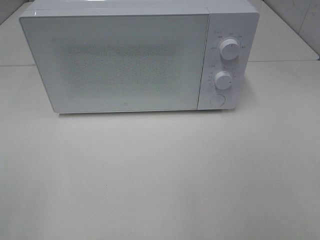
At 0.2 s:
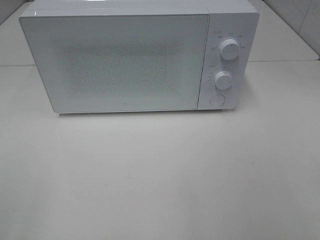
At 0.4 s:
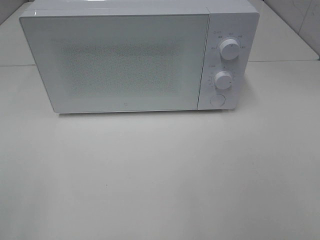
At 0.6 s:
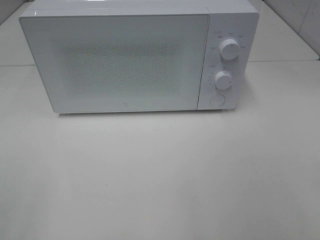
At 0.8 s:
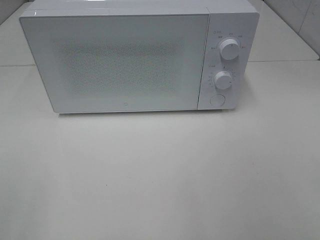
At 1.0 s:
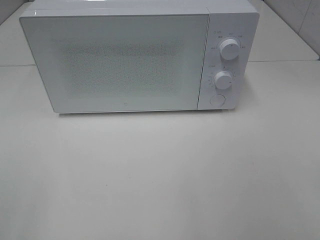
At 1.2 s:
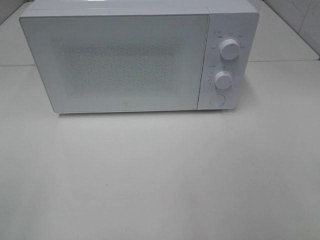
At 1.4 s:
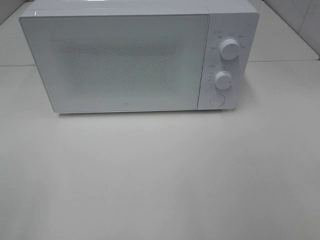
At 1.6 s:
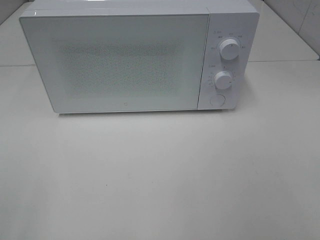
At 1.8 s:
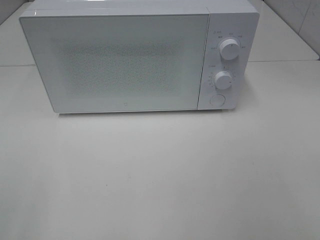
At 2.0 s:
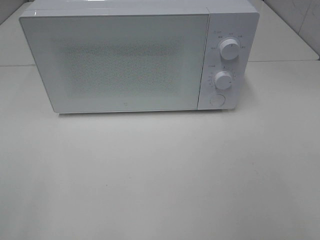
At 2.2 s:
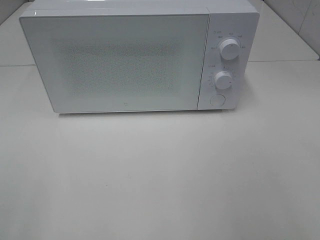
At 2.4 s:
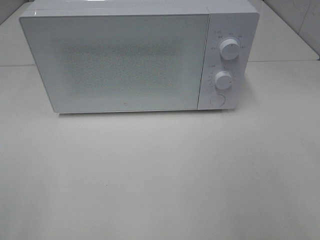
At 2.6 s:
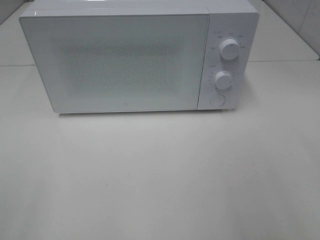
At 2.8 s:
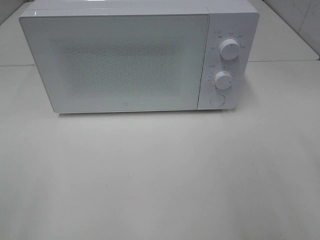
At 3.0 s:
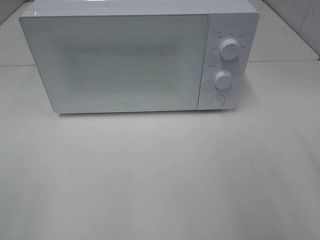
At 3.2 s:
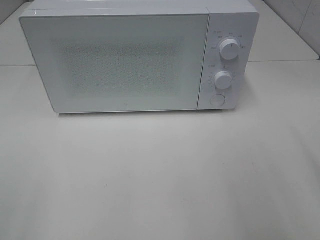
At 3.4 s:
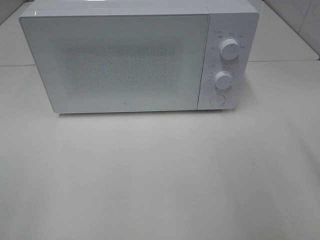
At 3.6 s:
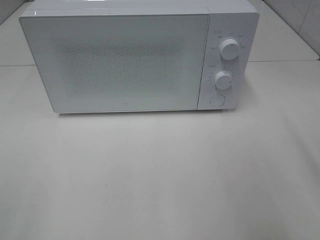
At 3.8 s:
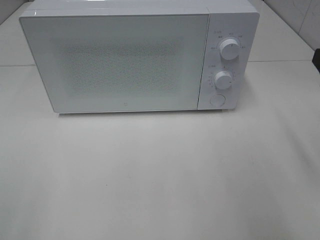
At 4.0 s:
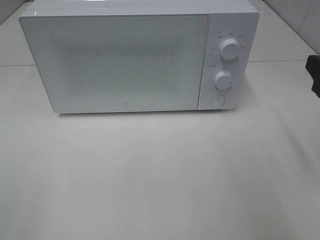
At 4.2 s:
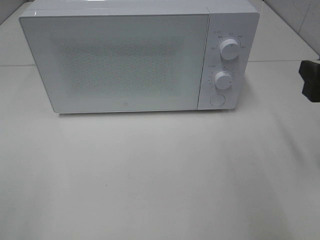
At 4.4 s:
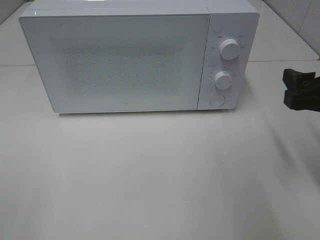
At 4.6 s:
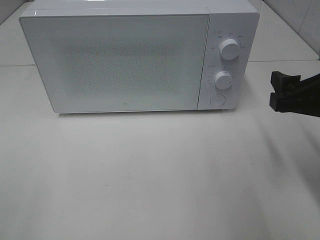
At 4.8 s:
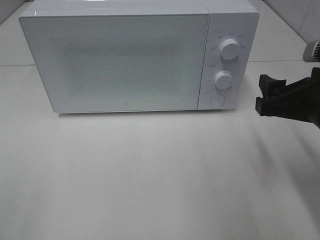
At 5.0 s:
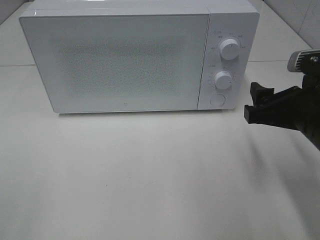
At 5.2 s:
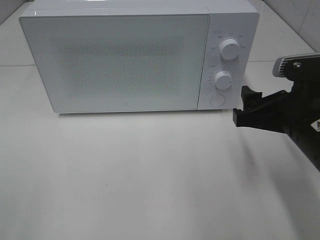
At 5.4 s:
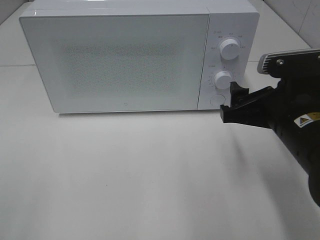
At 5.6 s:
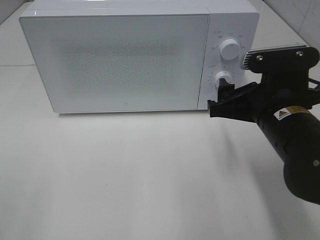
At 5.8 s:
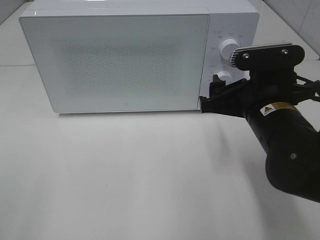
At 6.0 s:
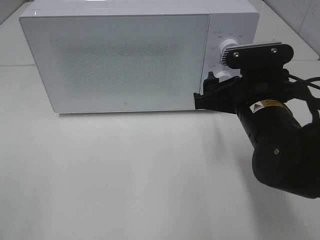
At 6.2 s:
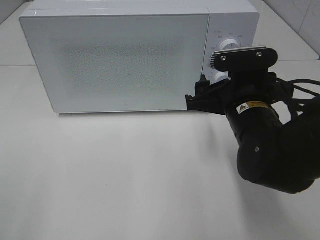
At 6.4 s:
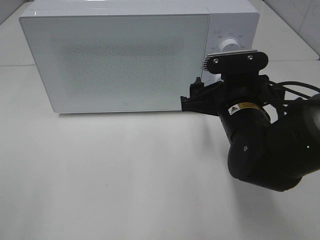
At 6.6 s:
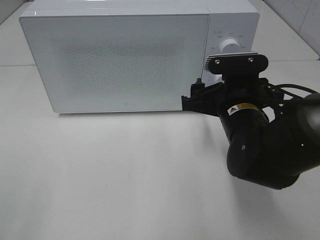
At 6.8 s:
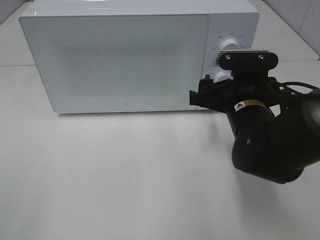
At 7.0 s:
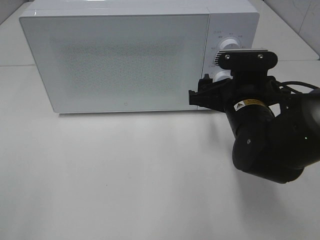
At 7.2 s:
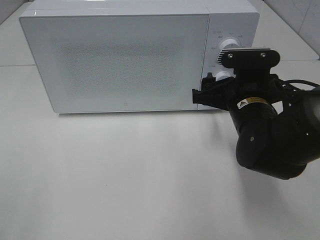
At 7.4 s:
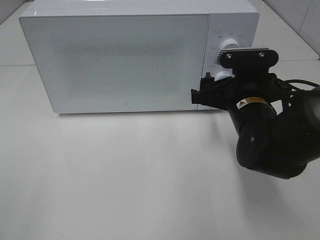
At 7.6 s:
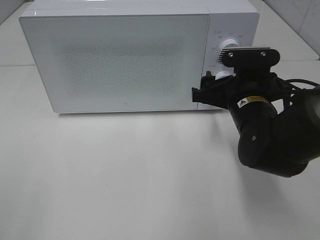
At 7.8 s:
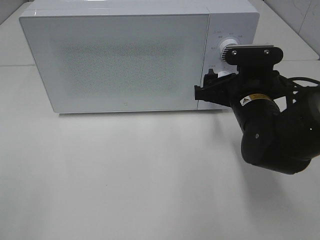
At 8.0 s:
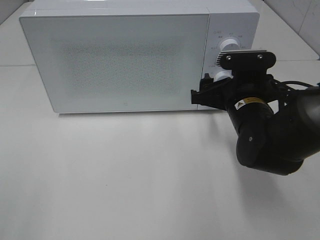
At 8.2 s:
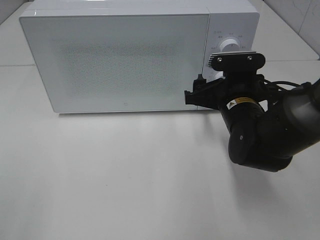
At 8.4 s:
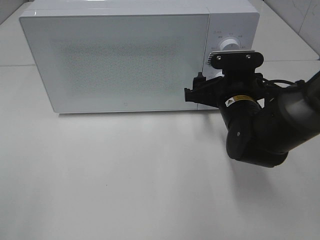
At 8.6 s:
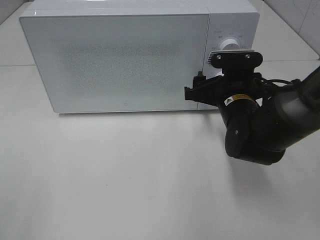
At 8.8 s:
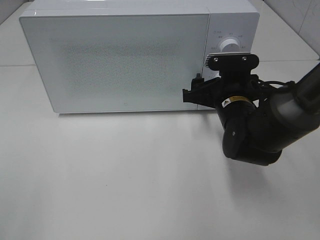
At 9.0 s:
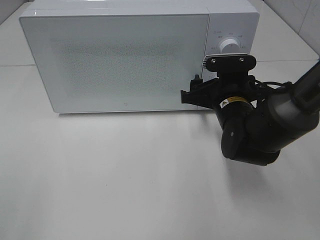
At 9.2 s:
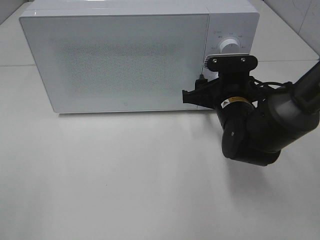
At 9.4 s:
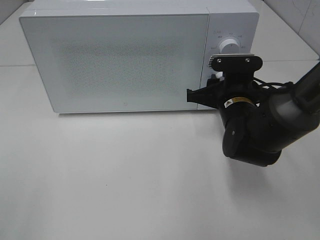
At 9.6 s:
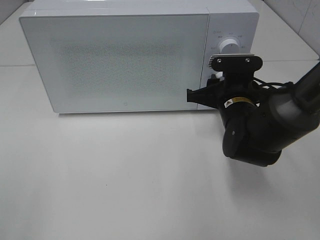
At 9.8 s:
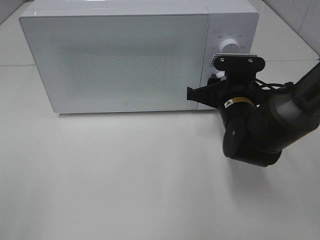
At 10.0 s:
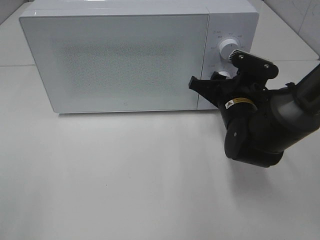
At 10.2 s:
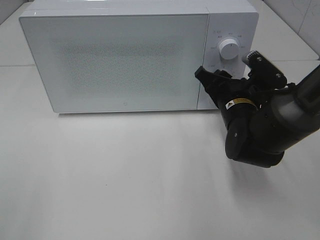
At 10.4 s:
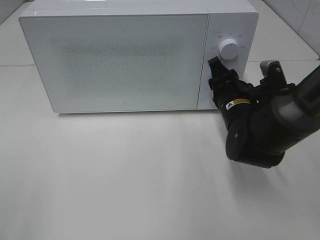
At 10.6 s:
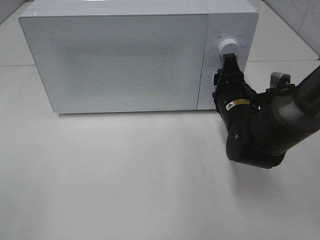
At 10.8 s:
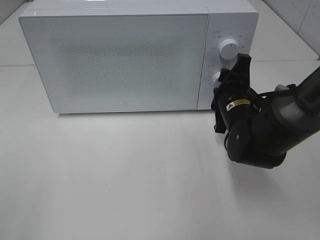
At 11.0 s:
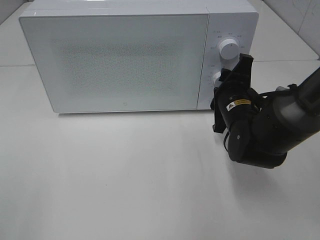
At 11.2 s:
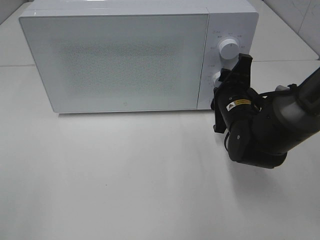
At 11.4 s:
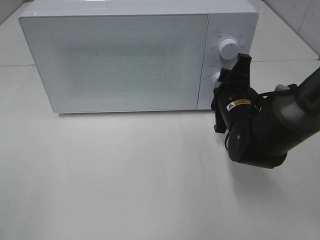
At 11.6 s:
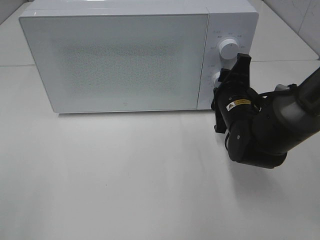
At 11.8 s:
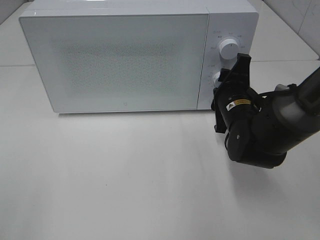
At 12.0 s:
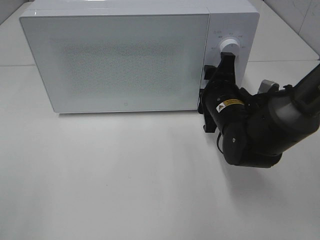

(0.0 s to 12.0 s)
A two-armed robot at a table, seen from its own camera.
Task of the whole recording: Heat the burger.
Step, 0.0 s - 11.8 s: Right hand: twist timer button.
0.0 s - 1.6 s: Both grippers stay put.
3.0 s - 4.4 s: The right gripper is displaced forward and downward by some 10 cm.
4.4 s - 6.0 s: The right gripper shifts some 10 cm to the left.
6.0 s - 7.6 s: The grippers move only a little.
7.6 s - 9.0 s: The grippers make only small movements.
9.0 s - 10.4 s: The right gripper closes its fingers.

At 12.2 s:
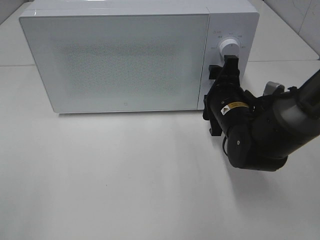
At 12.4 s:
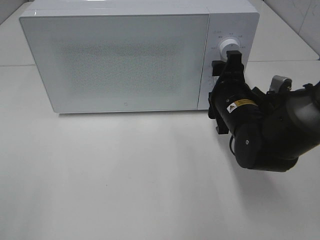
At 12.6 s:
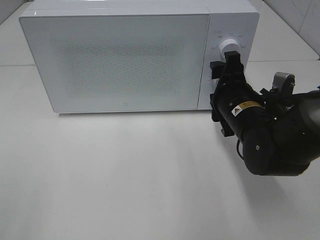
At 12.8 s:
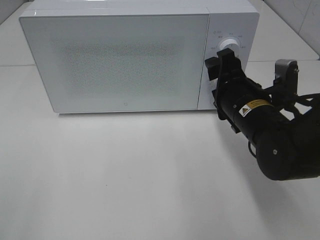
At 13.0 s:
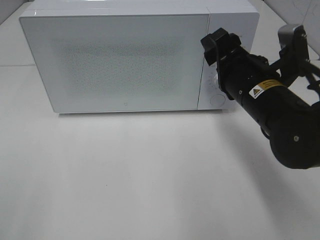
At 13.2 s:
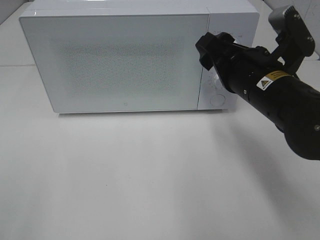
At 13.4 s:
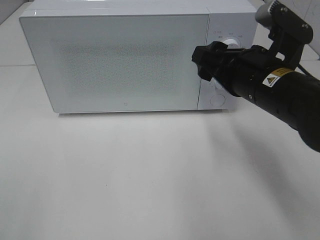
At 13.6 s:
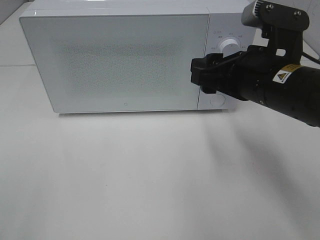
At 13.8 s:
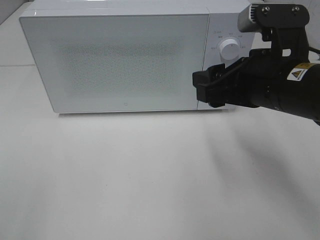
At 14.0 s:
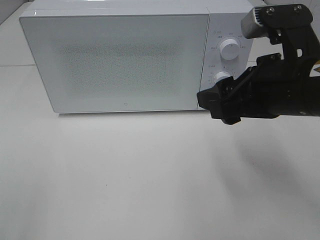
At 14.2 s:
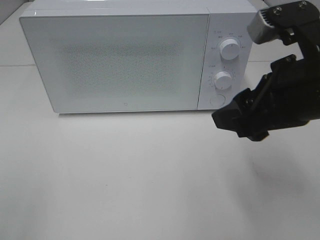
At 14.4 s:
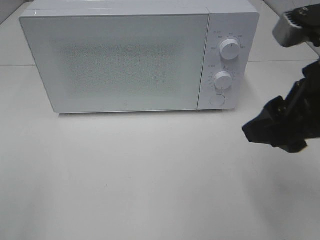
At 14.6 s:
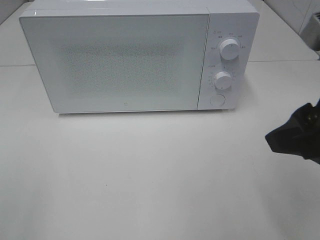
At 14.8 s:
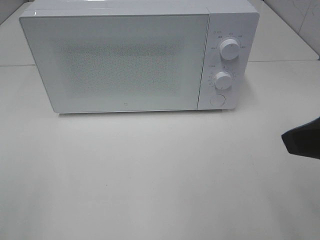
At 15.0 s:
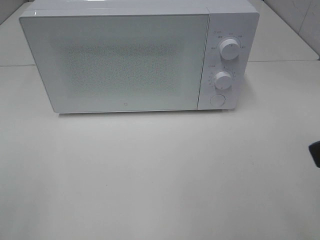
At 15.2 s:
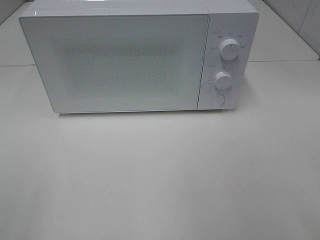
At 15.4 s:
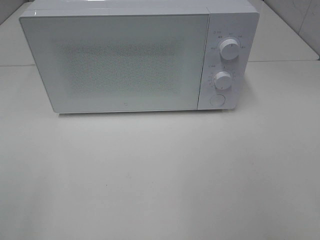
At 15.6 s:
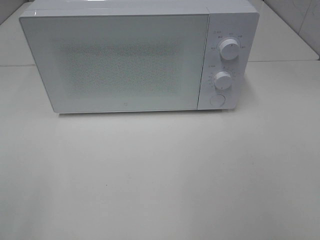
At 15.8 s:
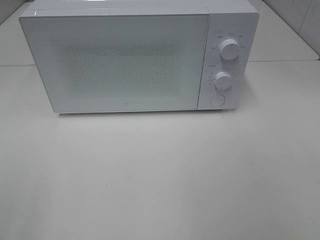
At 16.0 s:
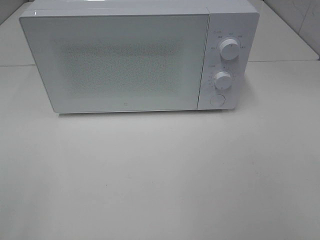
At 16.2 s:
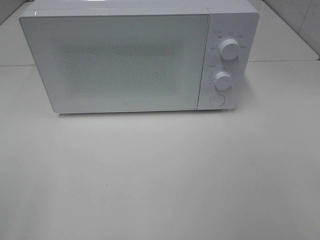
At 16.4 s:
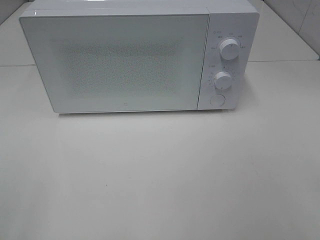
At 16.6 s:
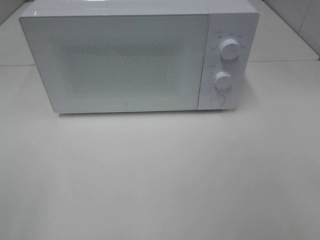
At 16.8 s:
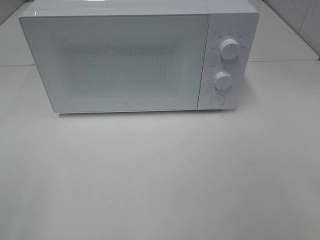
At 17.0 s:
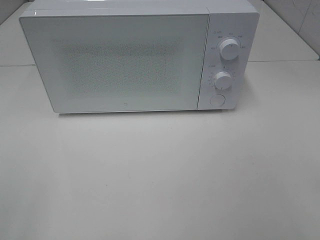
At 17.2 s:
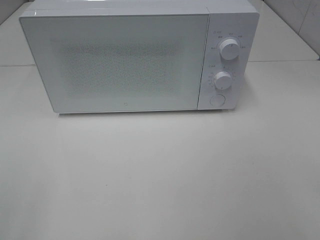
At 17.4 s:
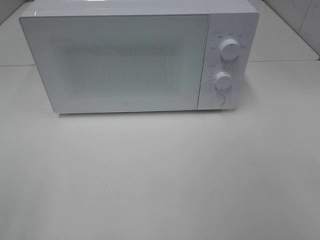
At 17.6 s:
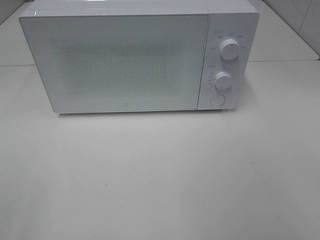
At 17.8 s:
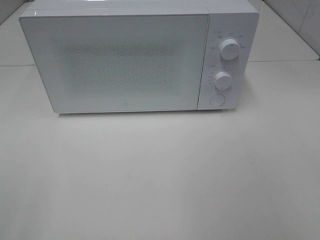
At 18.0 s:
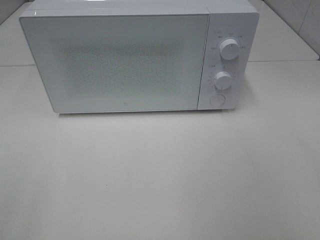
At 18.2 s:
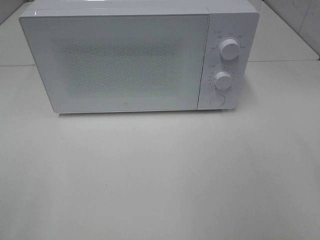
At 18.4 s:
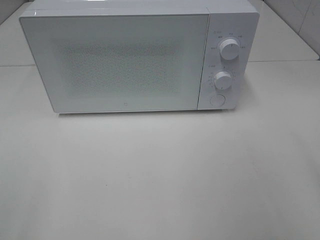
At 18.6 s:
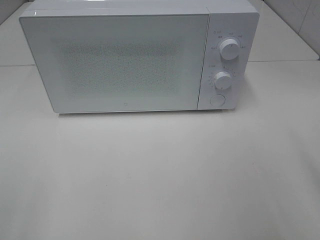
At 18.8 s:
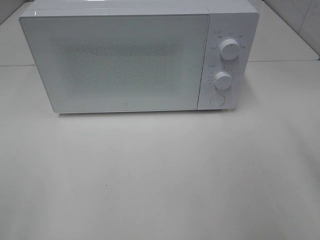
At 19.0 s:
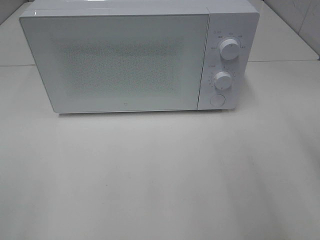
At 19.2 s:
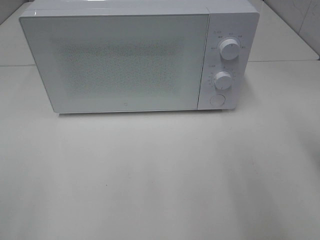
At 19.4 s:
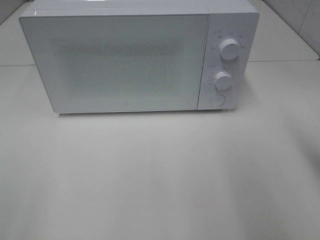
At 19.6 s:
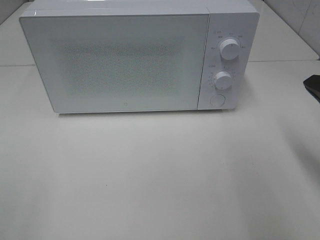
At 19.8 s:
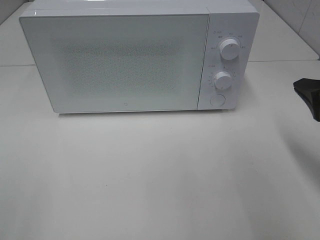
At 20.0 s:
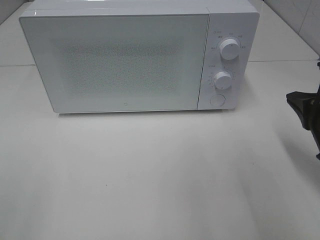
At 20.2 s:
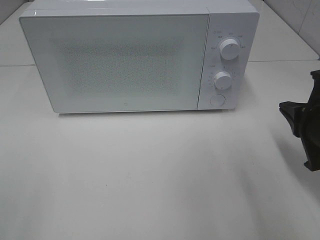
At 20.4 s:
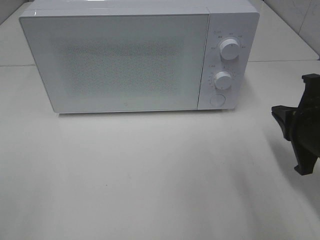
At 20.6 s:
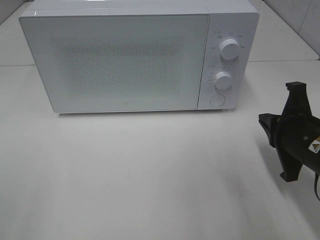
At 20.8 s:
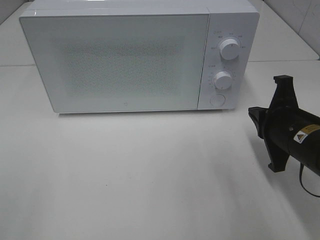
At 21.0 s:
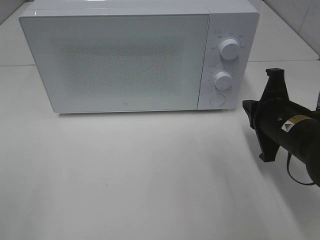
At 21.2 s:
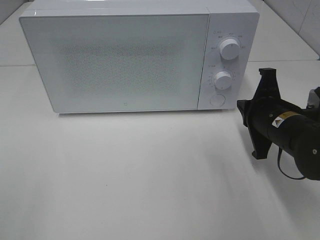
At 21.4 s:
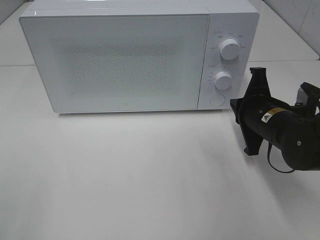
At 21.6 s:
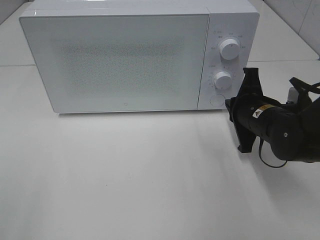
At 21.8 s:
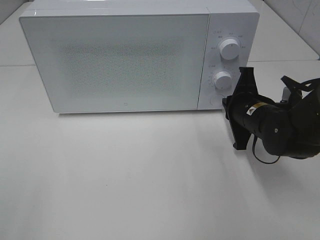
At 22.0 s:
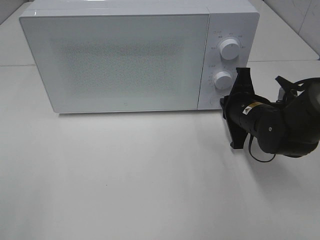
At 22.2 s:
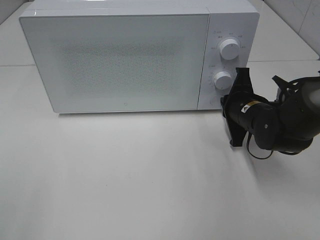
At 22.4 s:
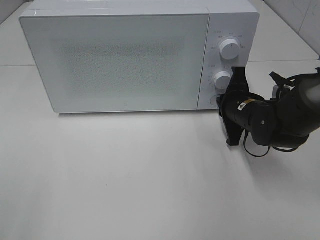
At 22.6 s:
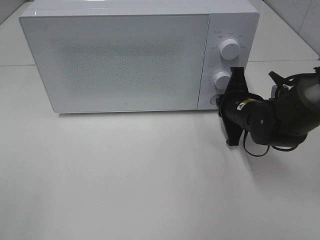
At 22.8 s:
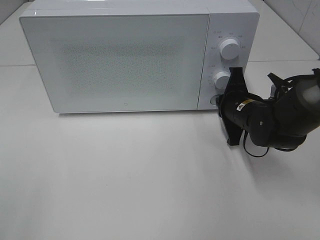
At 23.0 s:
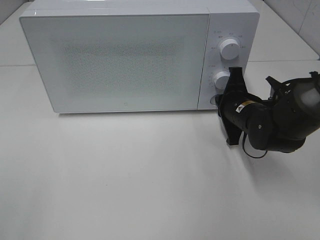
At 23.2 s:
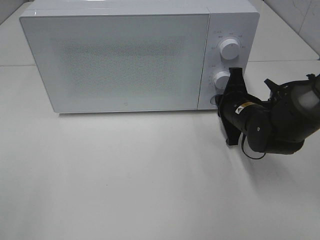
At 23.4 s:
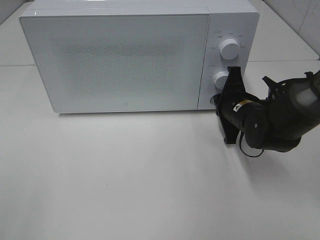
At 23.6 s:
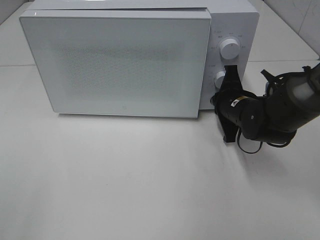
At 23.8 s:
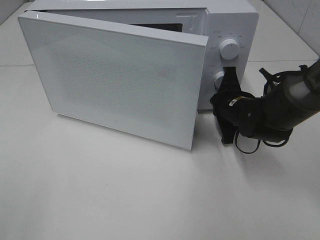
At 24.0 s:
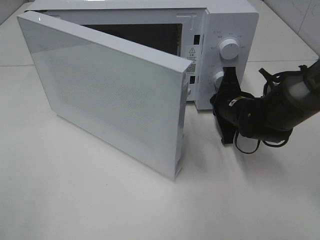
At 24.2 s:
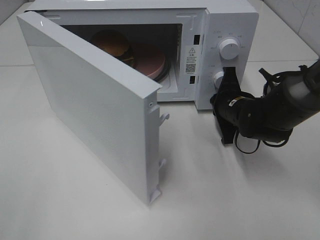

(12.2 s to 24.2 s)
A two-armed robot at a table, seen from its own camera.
Task of the whole recording: Heat the burger.
12.2 s - 13.8 s: The right gripper goes approximately 15 cm upward and backward.
13.8 s - 15.2 s: The right gripper is displaced backward, to the right and upward by about 20 cm.
18.2 s - 19.8 s: The right gripper goes some 20 cm forward and downward, and closes.
19.8 s - 21.2 s: The right gripper goes roughly 10 cm downward, to the left and forward.
21.2 s - 22.6 s: The right gripper moves forward, some 5 cm.
